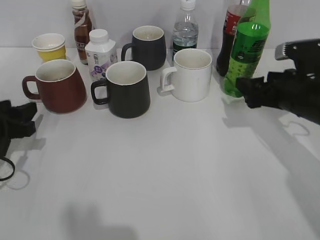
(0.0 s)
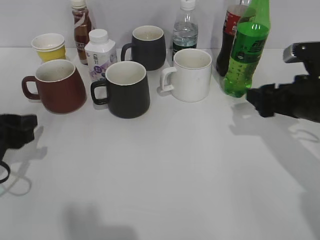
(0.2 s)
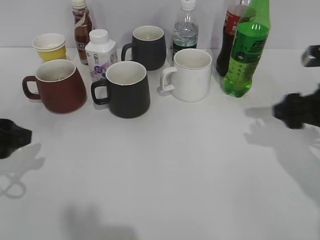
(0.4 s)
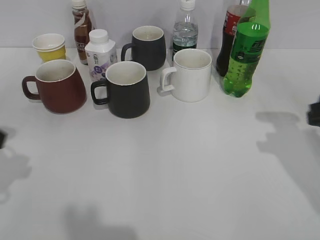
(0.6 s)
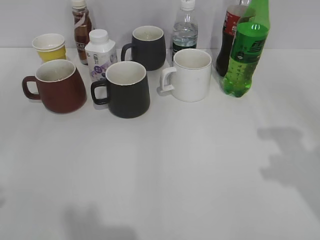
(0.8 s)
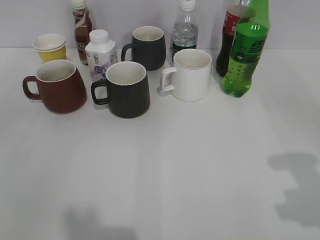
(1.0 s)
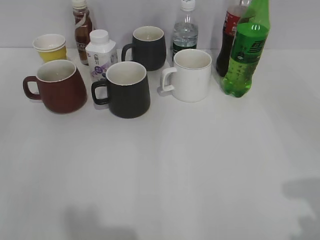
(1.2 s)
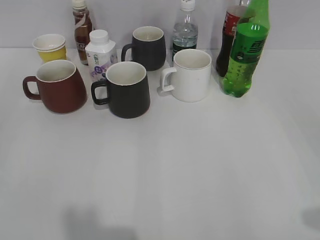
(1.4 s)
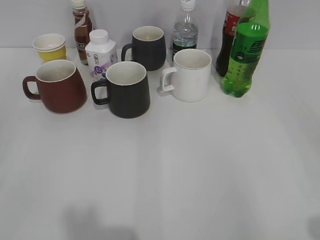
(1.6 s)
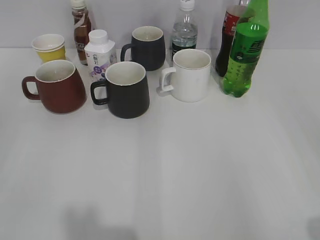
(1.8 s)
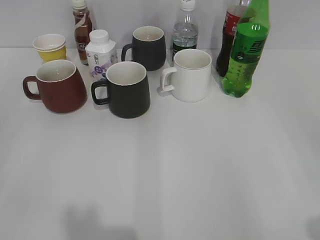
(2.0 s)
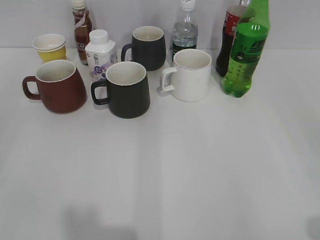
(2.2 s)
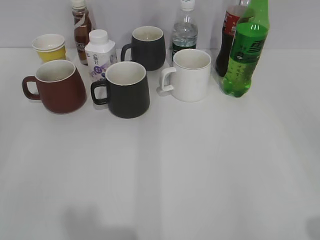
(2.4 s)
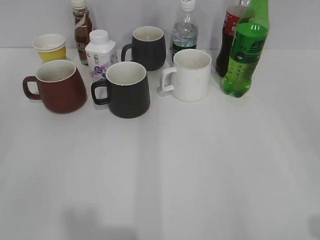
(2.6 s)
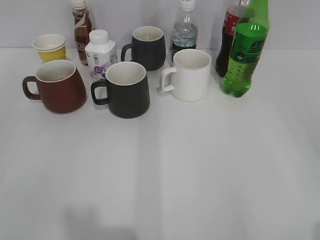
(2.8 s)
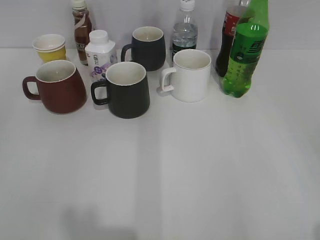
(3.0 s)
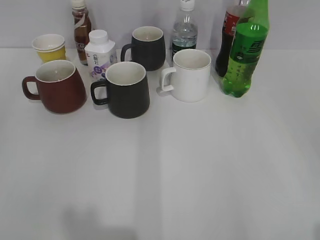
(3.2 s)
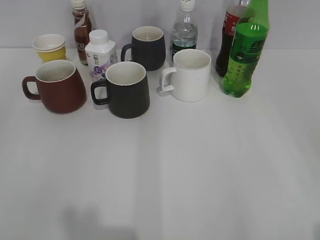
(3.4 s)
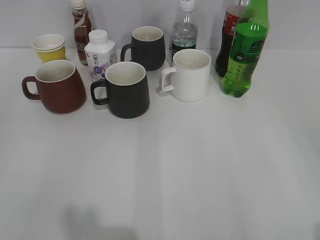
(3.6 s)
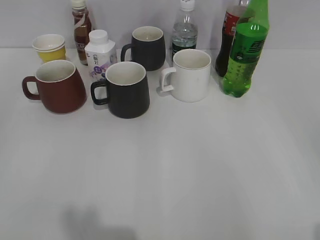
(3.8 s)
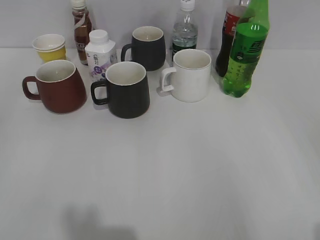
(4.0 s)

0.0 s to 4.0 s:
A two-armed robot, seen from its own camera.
0.0 to 1.4 s: The grippers both shift backward and upward by approximately 30 cm. The right gripper closes up.
2.6 to 4.0 s: There are only small adjustments of the grippers.
